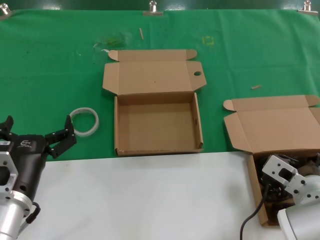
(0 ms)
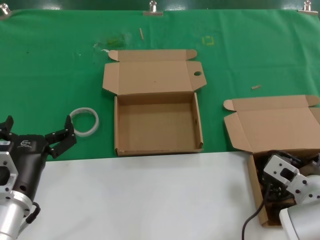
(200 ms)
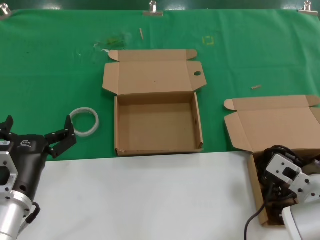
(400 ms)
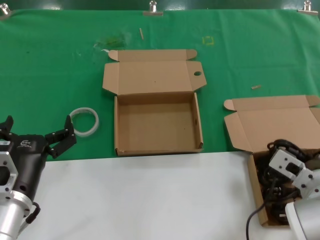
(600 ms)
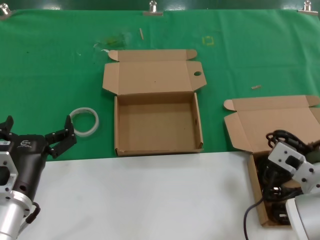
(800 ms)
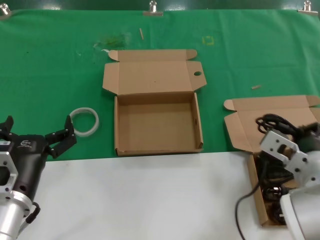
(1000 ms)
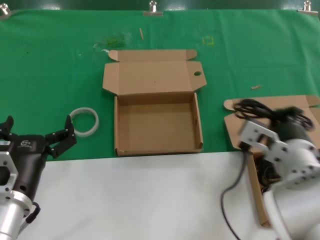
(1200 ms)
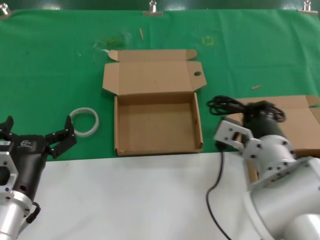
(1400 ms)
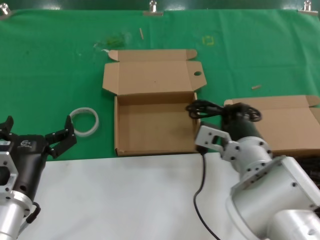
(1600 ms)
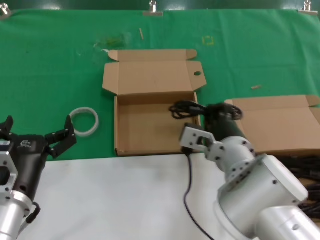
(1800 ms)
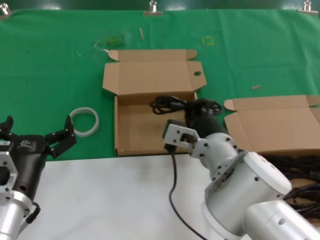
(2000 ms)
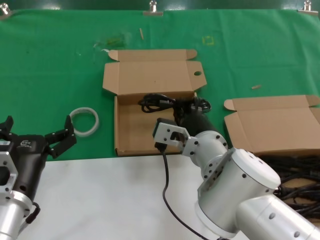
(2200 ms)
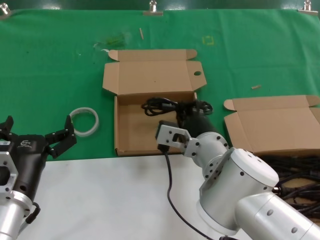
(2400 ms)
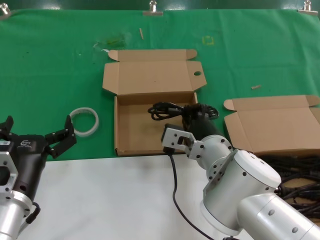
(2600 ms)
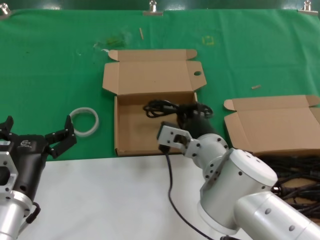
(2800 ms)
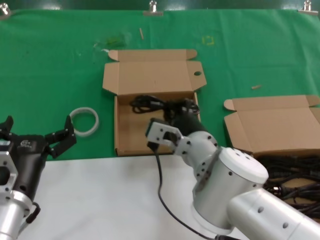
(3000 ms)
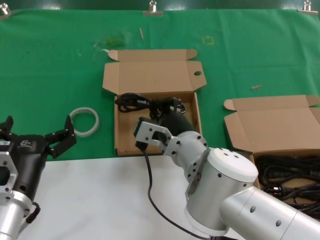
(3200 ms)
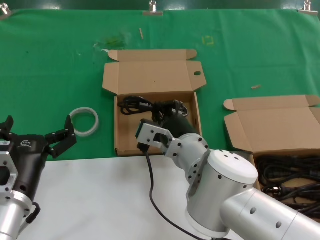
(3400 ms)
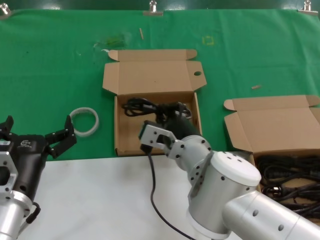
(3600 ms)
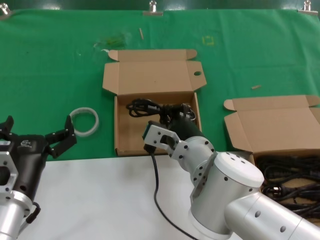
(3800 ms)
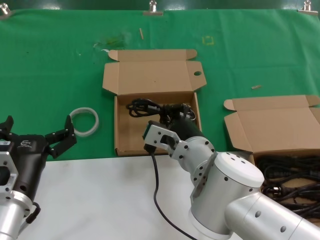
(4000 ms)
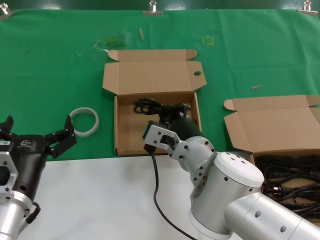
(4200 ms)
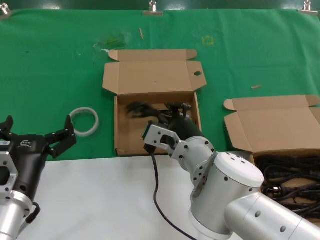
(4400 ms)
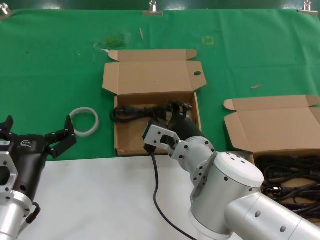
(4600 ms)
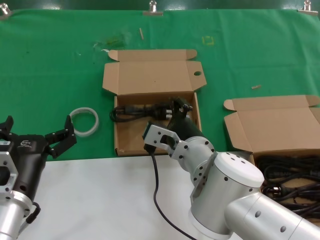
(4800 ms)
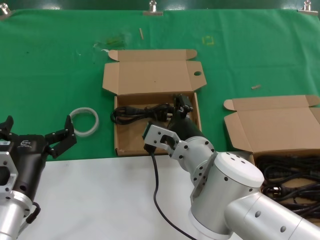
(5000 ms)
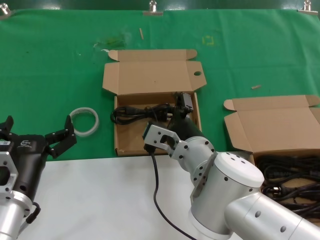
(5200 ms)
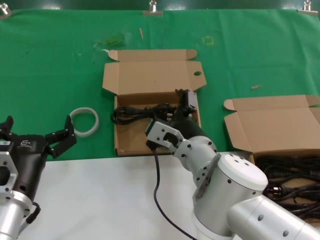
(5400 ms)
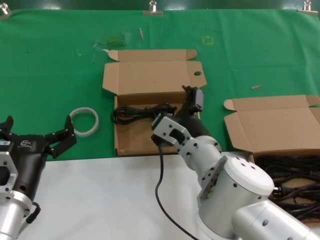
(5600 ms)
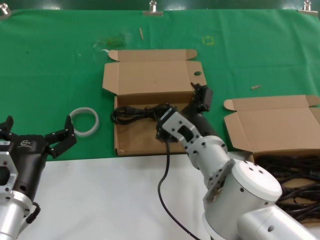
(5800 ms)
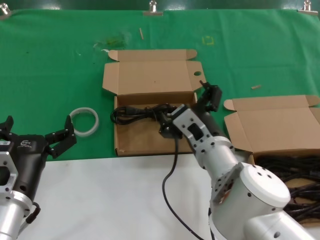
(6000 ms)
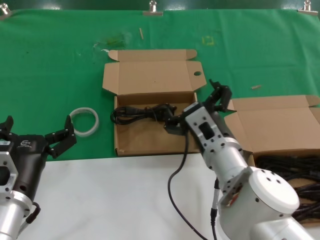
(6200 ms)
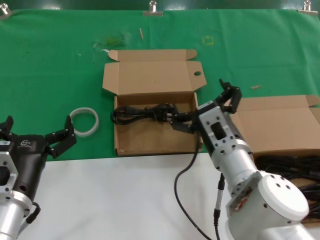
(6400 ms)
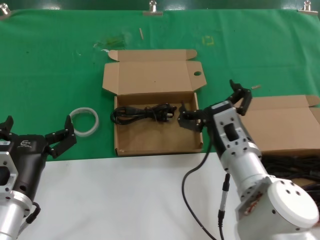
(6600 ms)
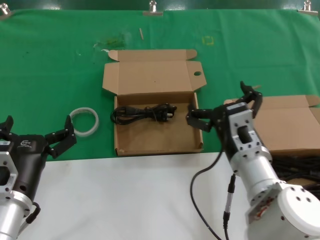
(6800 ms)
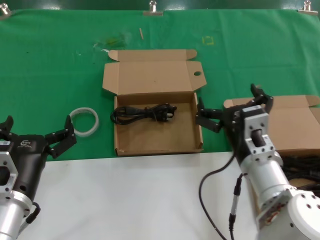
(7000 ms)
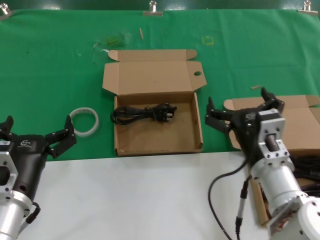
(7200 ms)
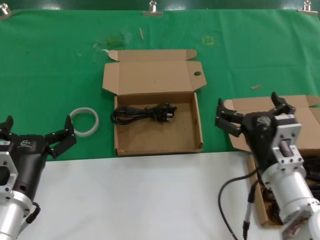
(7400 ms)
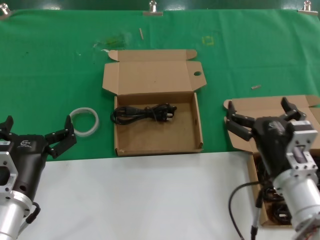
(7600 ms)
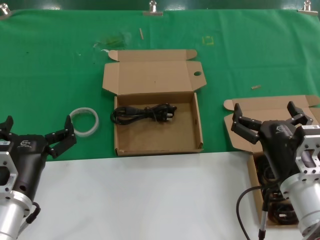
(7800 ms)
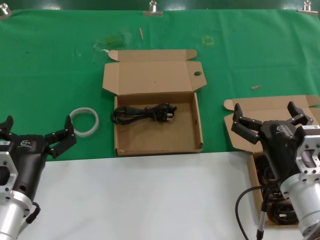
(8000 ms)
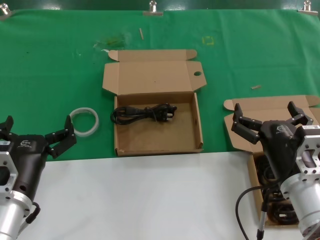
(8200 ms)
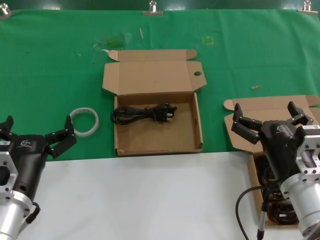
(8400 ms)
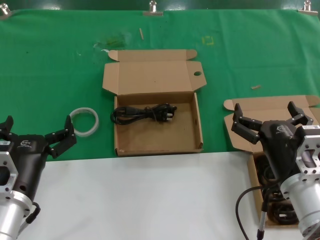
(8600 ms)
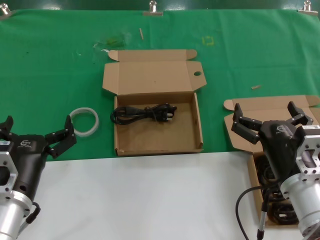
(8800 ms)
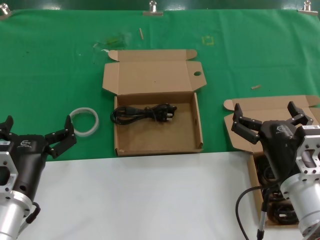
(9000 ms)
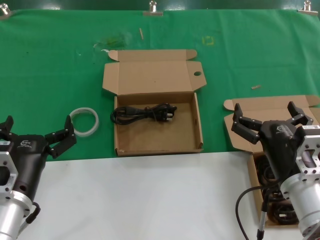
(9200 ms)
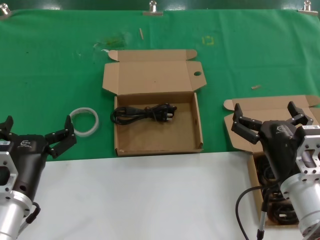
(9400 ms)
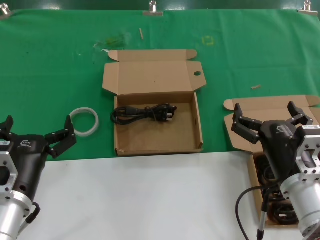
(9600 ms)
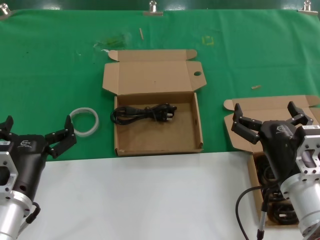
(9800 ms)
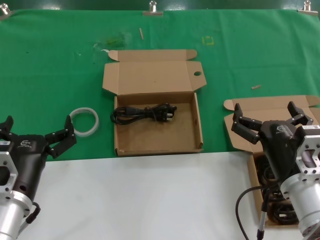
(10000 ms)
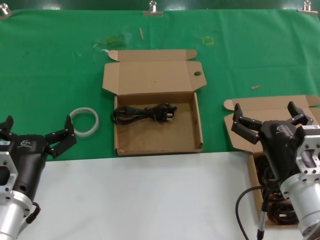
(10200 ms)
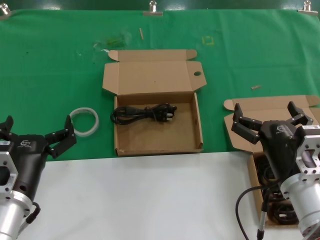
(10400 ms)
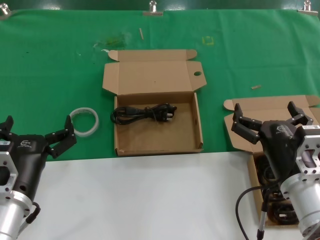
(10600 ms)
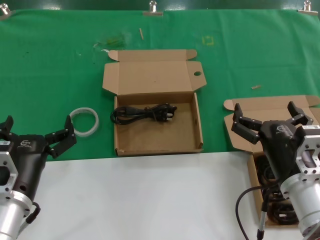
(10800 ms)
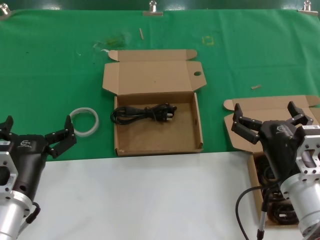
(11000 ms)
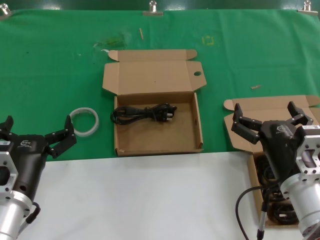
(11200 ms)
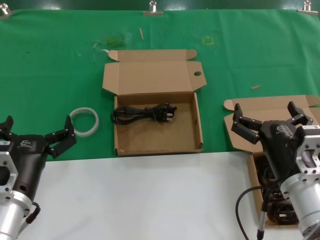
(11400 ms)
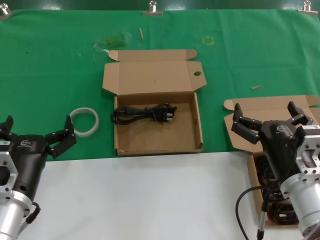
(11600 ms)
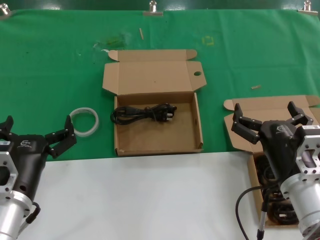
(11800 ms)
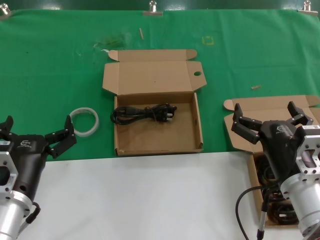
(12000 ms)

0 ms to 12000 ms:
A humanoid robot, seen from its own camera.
Task of the whole recording: take the parts from the box containing them and put them into an empty box.
Step, 400 ms to 5000 ms: Place the data cable in the another box.
0 ms to 1600 ms: The right hand heads to the left, covering approximately 10 cm.
1600 ms to 3000 ms: The right hand goes about 5 cm to the left.
3000 ms to 4400 ms: The hands make only small movements.
6000 ms to 7600 ms: The right hand travels to the right and backward by about 15 cm.
7600 ms to 9000 ms: The hands make only small movements.
9000 ms to 12000 ms: Both hands stay about where they are.

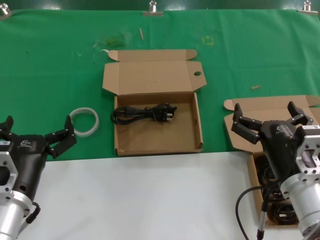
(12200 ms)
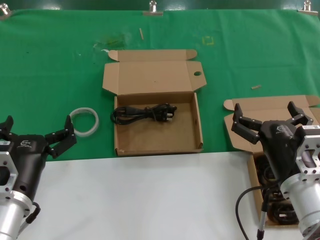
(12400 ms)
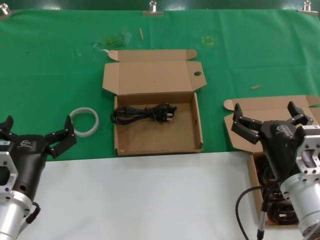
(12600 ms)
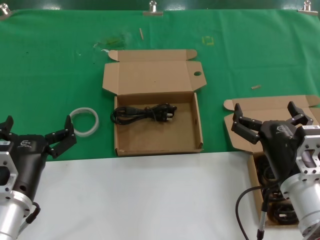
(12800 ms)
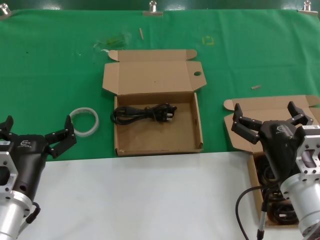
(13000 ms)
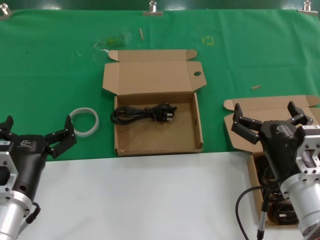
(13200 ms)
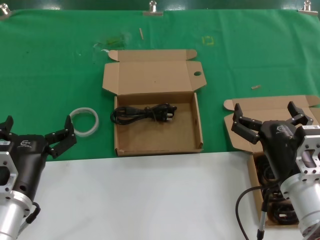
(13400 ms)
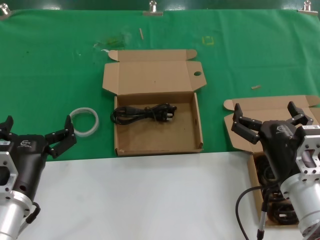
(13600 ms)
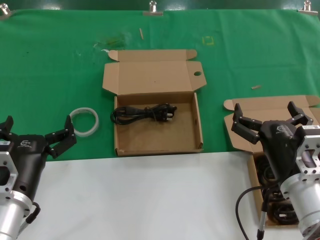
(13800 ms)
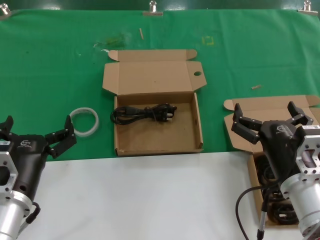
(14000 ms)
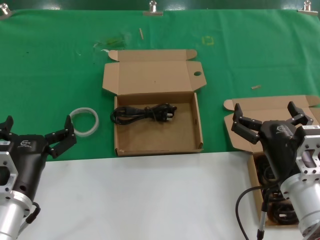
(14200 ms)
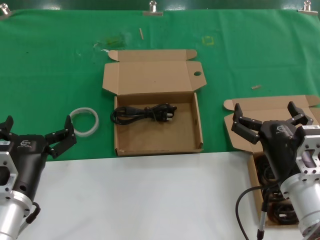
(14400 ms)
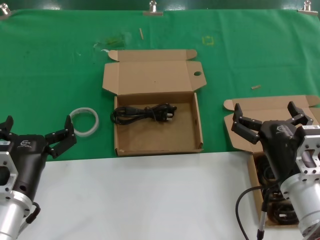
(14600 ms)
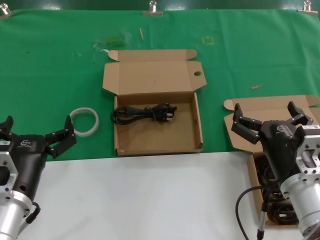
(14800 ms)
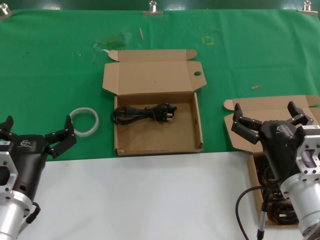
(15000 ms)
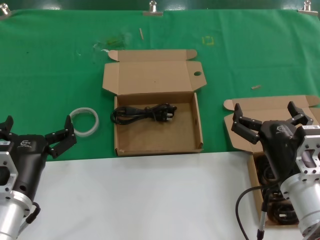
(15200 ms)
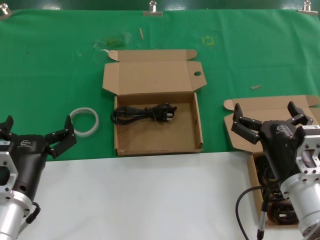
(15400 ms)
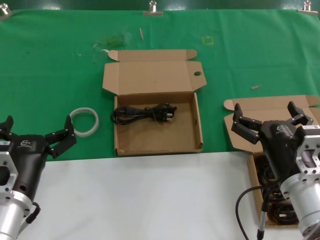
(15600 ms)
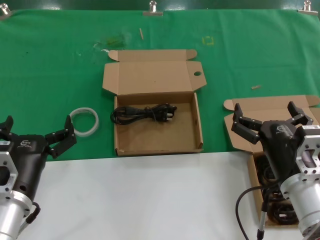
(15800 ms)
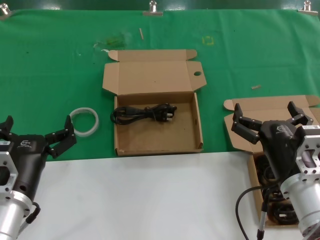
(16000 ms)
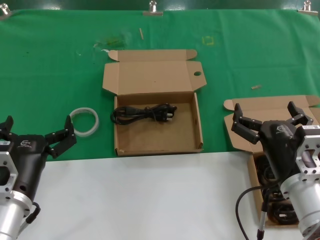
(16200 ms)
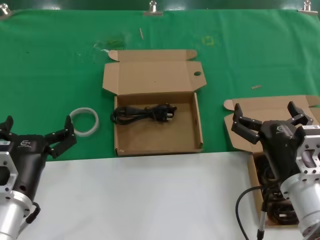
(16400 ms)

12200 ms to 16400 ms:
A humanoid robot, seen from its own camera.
Task of the whole recording: take the parts from the box containing them and put them into an empty box.
12200 ms to 16400 ms: The two hands keep their place.

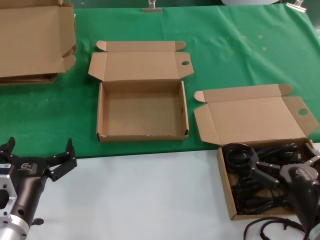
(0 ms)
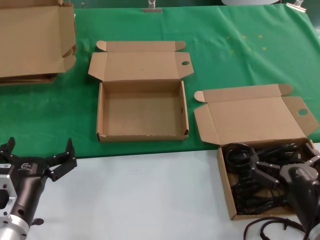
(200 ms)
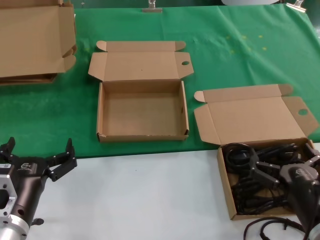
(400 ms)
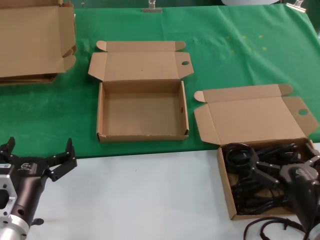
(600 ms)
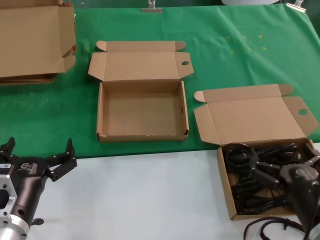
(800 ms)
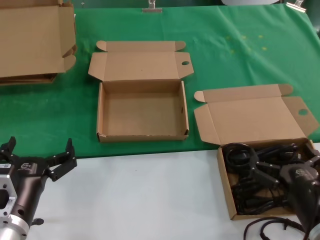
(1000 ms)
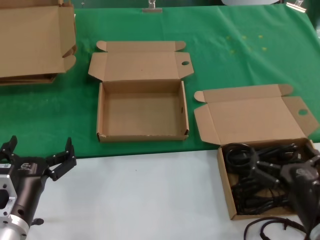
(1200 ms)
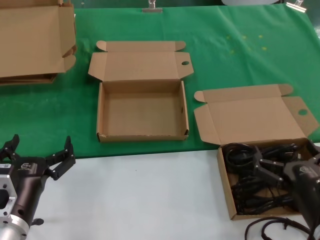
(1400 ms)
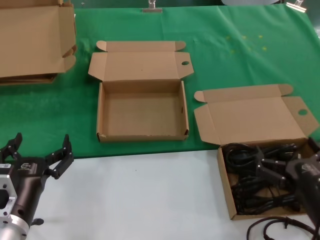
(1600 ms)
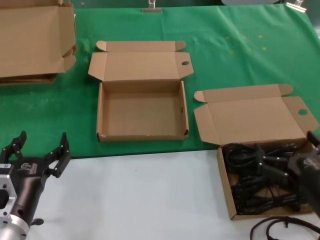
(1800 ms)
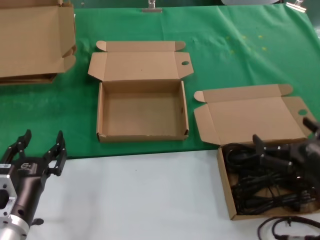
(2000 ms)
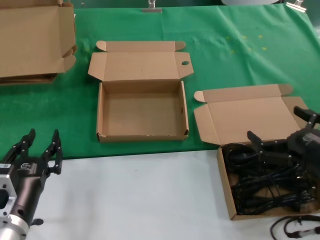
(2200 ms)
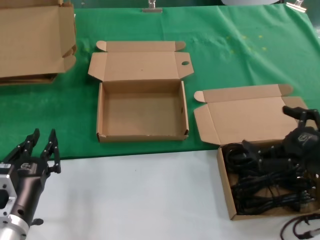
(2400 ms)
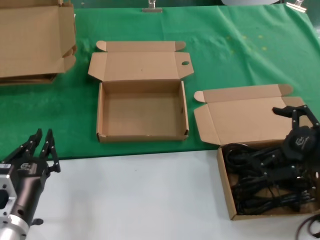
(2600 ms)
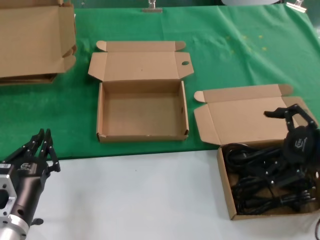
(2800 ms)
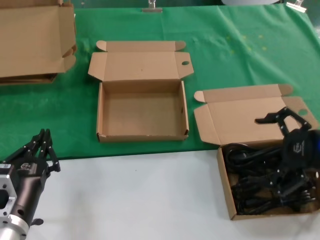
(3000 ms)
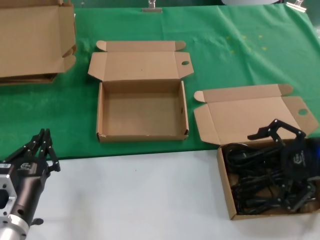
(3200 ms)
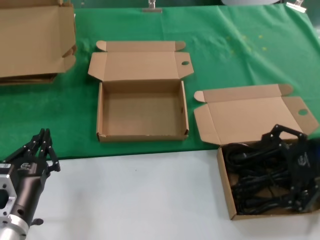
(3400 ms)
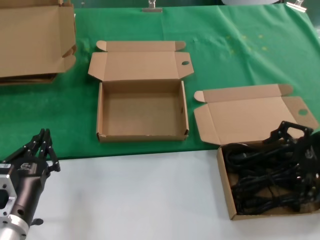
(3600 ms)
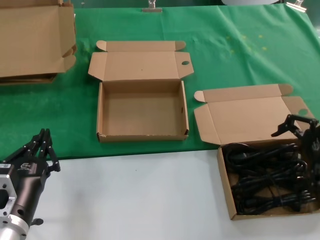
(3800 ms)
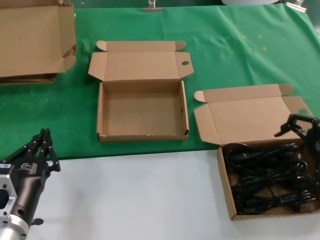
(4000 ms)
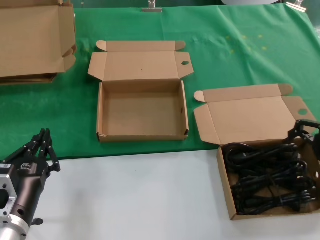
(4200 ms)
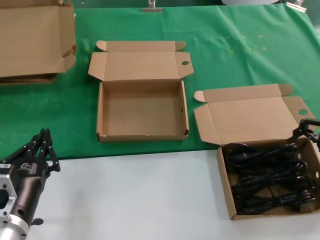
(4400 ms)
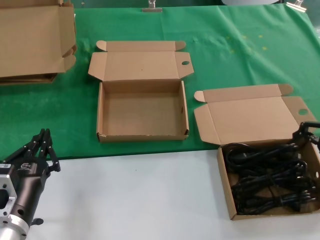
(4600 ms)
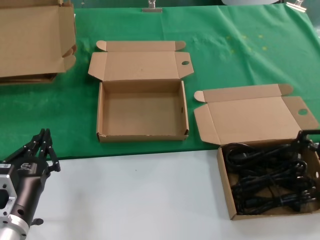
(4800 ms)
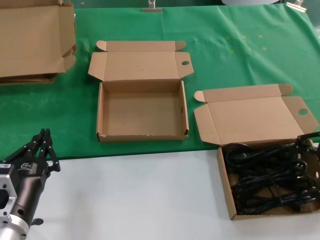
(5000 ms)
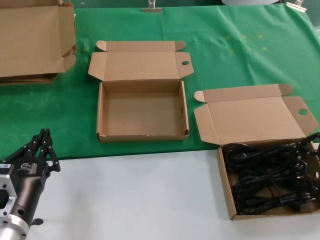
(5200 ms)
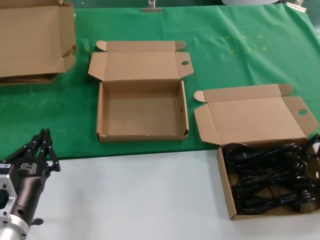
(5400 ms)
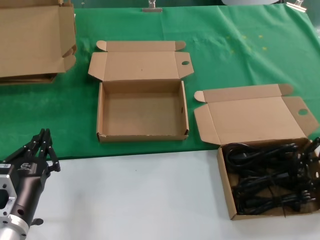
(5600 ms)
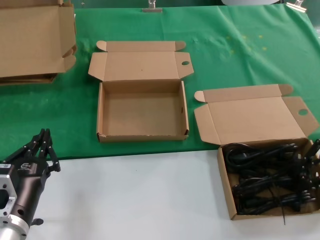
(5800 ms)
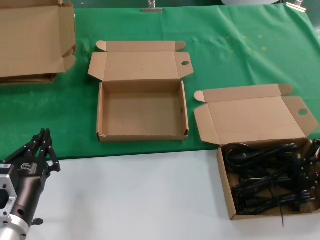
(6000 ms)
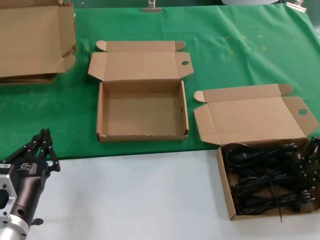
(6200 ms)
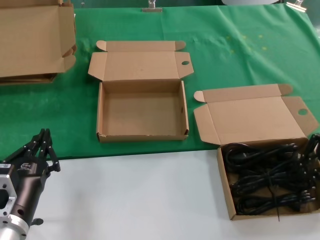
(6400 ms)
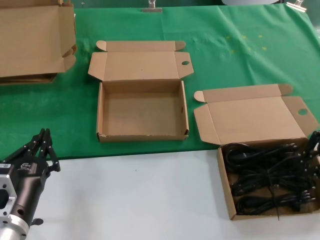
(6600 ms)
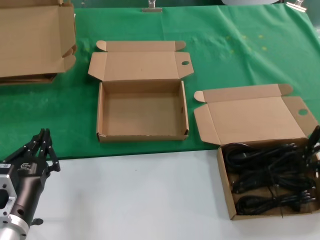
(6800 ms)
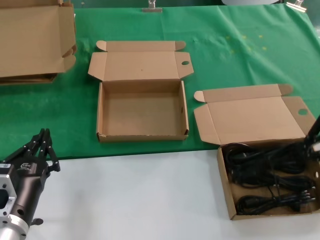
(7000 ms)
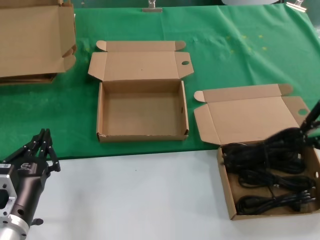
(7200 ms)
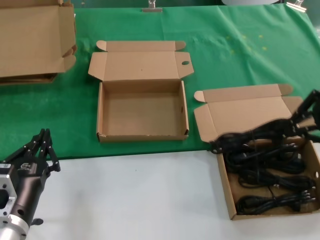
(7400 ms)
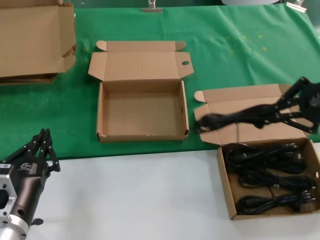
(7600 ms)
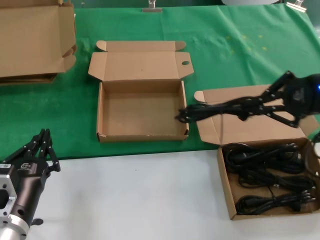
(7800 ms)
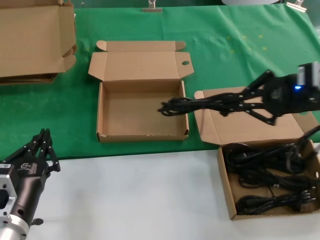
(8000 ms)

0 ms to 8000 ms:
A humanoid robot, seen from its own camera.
Task of the whole recording: take the parts from the box containing them and put them into an empty box.
Step, 0 ms to 6000 ms: Grasp the data cable.
0 ms to 1600 ms: The hands move only a little.
1600 ms to 3200 ms: The right hand is displaced upward, forward and to the right by about 20 cm.
3200 ms to 4800 ms: The right hand is displaced forward by about 5 cm.
6400 ms to 8000 ms: The right hand shifts roughly 5 cm to the left.
